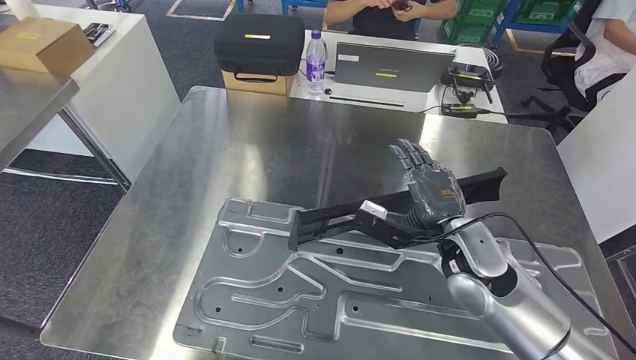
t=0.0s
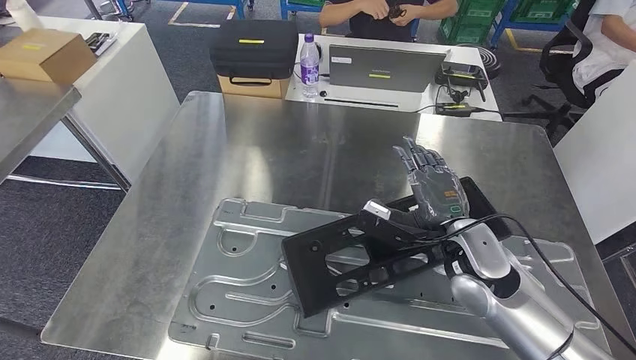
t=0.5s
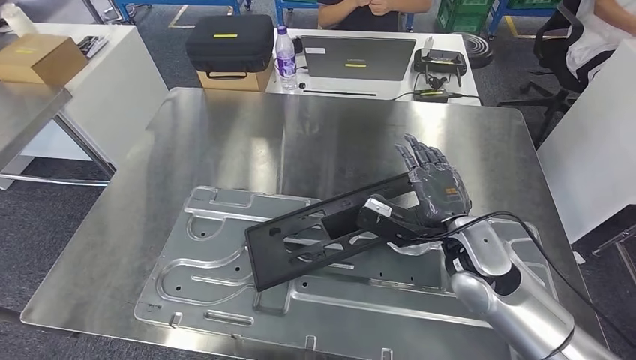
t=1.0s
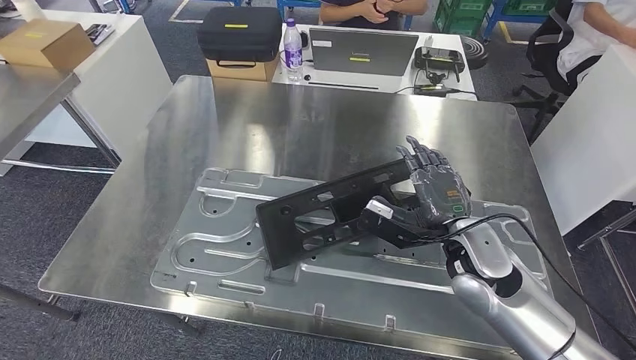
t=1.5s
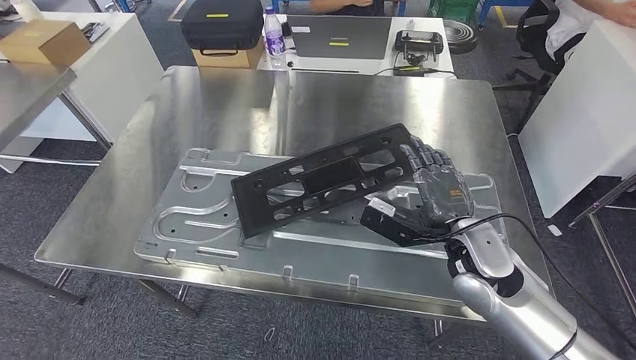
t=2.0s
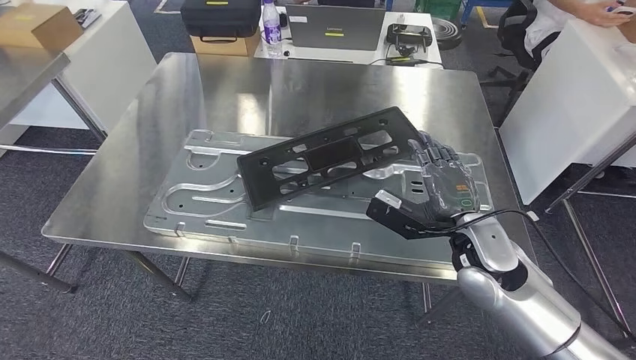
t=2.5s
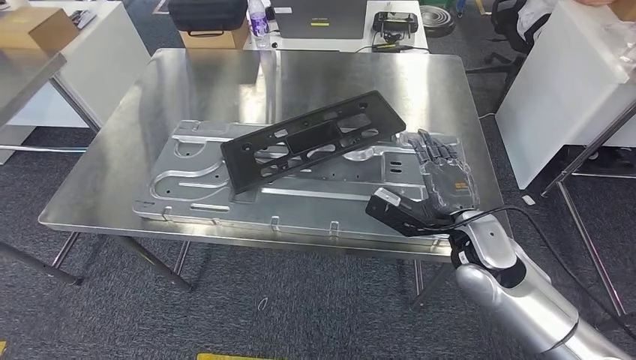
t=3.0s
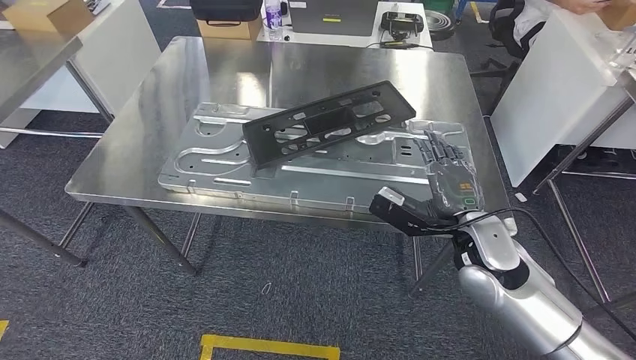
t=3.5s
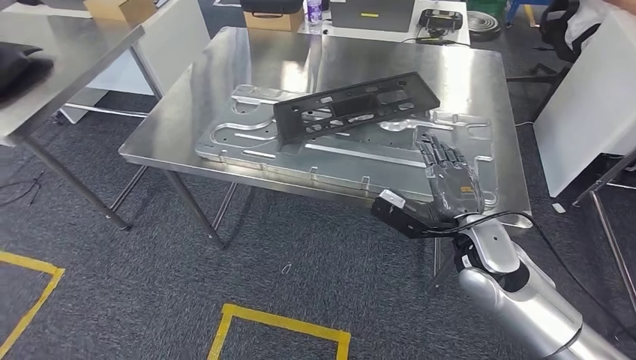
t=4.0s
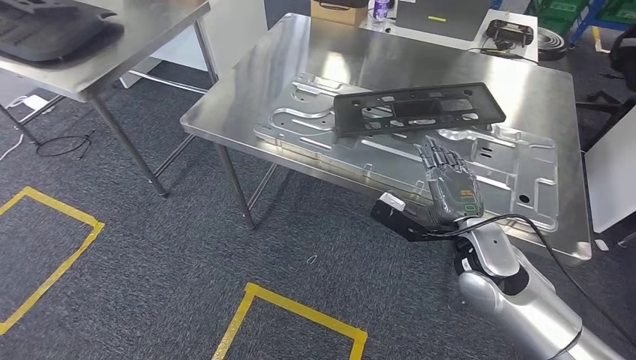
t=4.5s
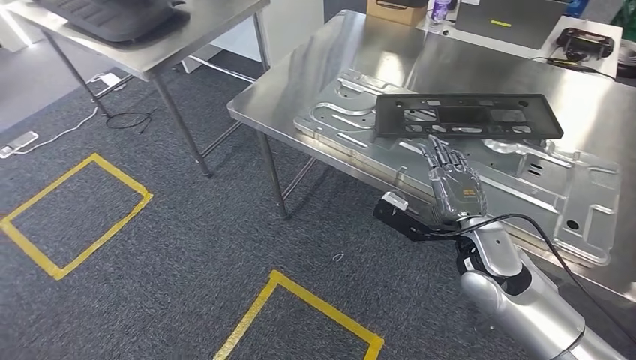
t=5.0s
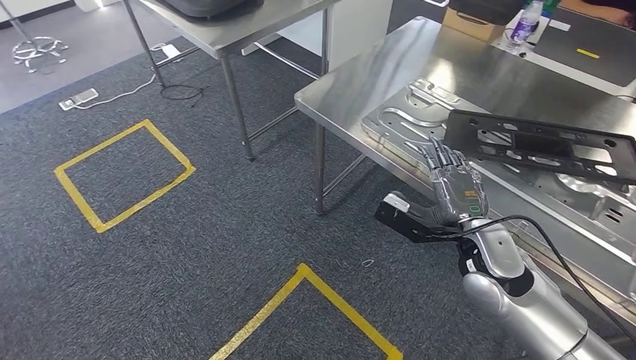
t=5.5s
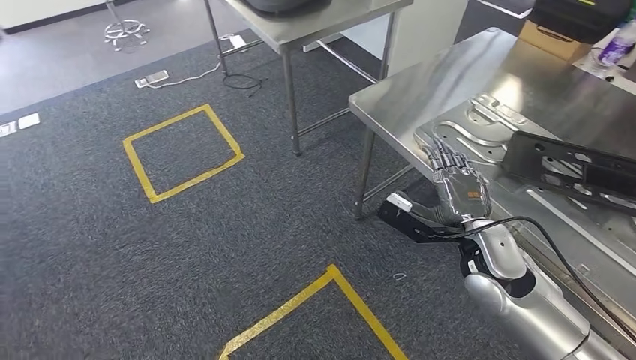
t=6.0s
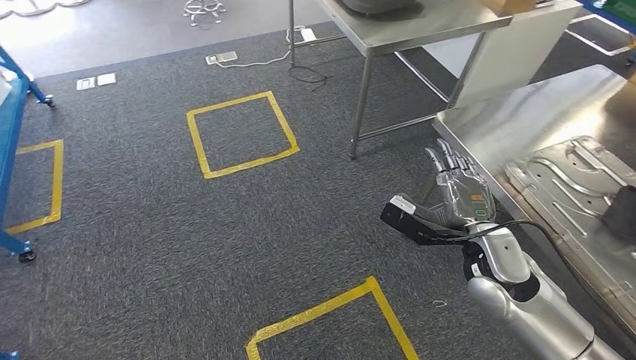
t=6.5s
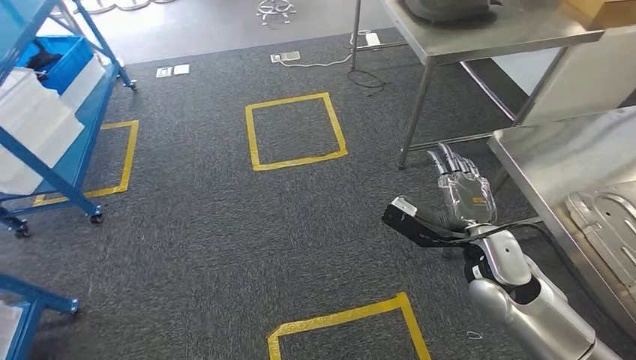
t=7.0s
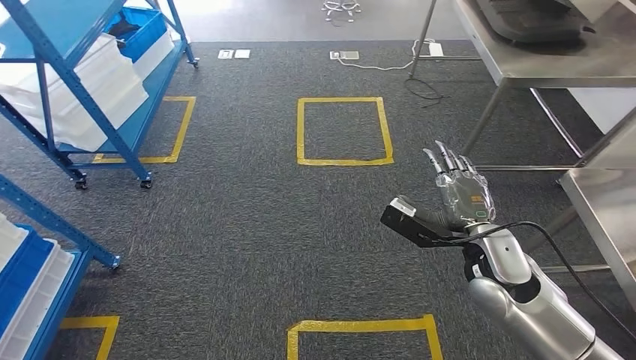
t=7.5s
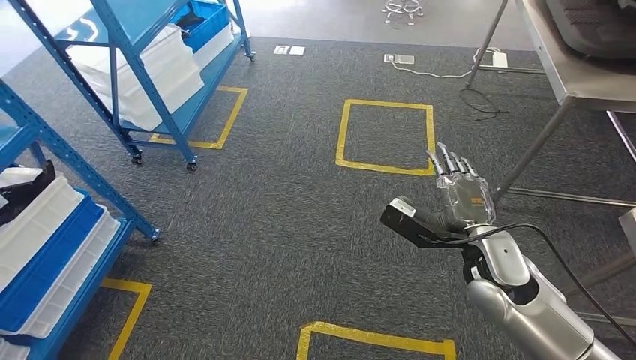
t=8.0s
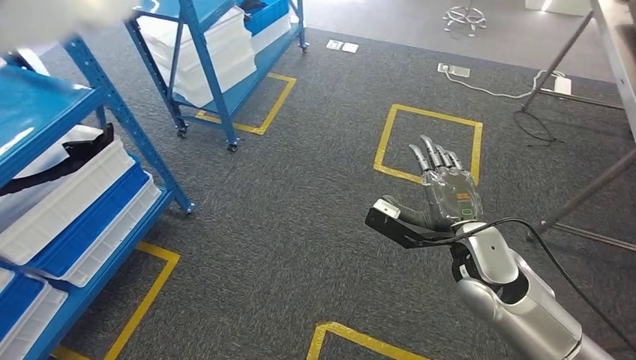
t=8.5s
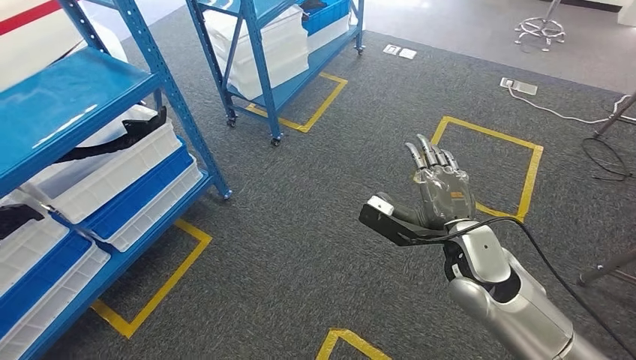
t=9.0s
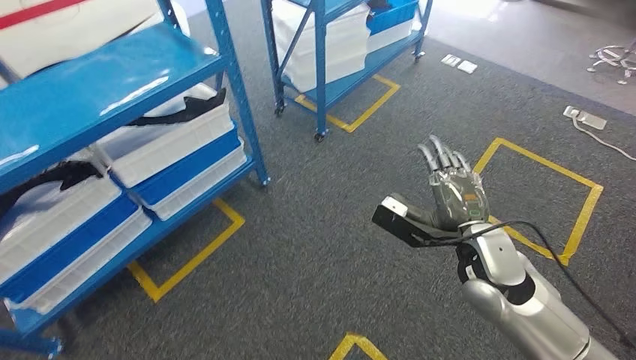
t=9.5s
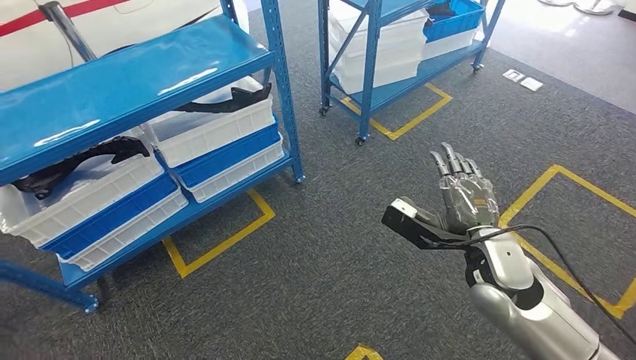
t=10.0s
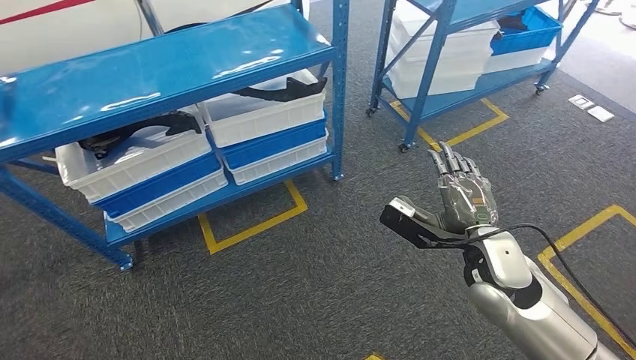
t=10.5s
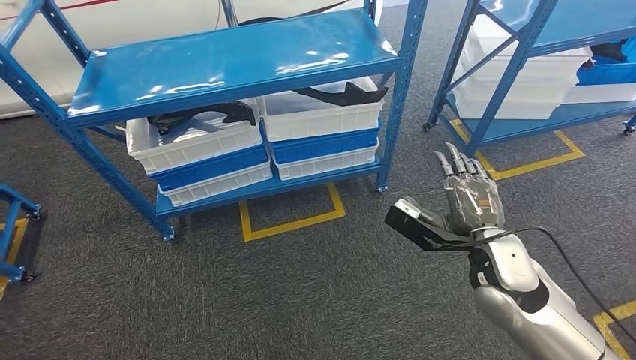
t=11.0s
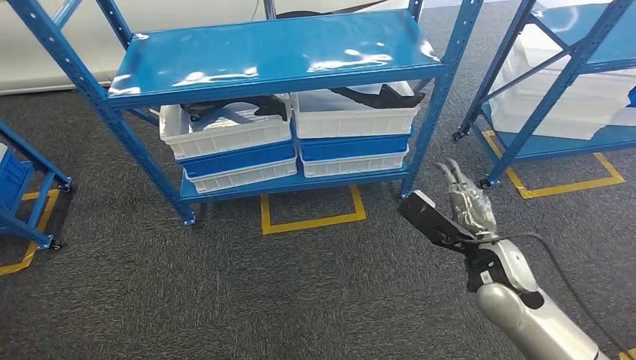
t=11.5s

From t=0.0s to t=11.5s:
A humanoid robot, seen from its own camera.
Step, from t=0.0s to t=3.5s: Insert the large material into the corresponding slot on the workbench.

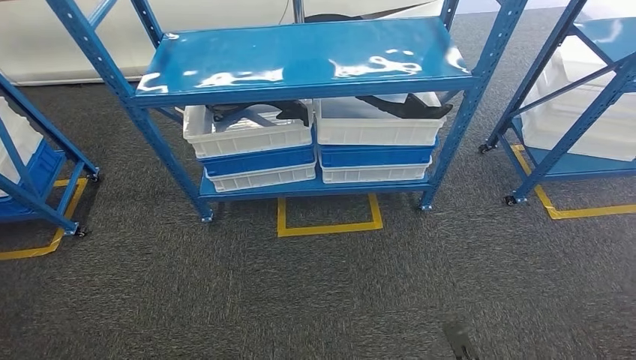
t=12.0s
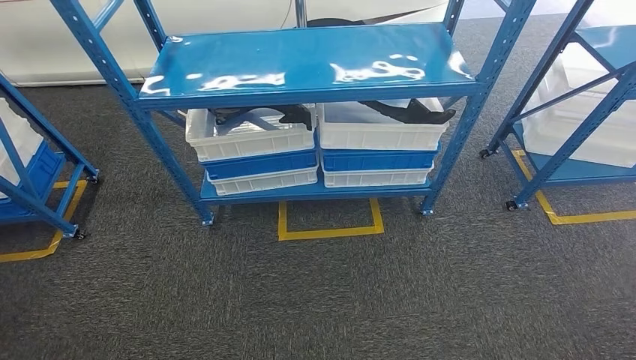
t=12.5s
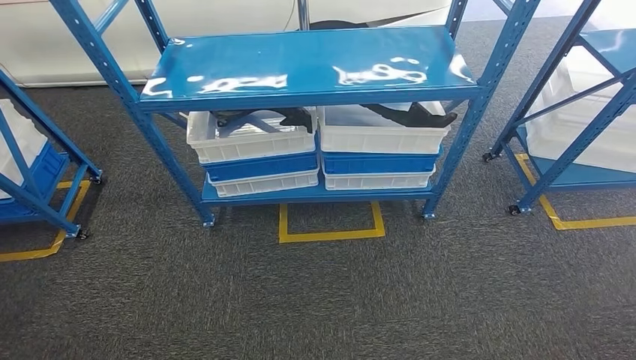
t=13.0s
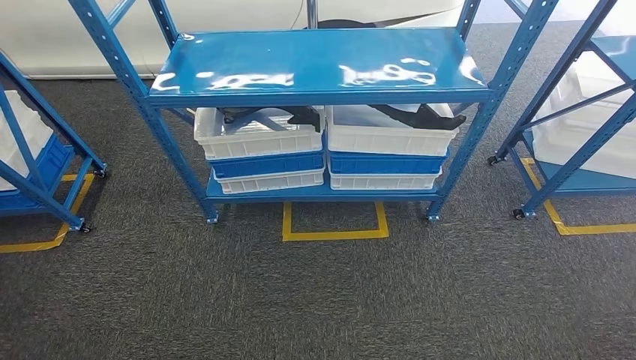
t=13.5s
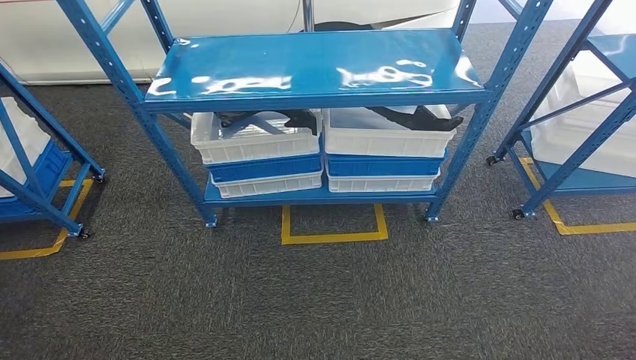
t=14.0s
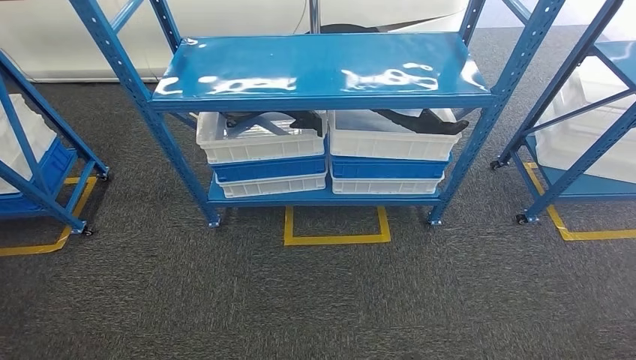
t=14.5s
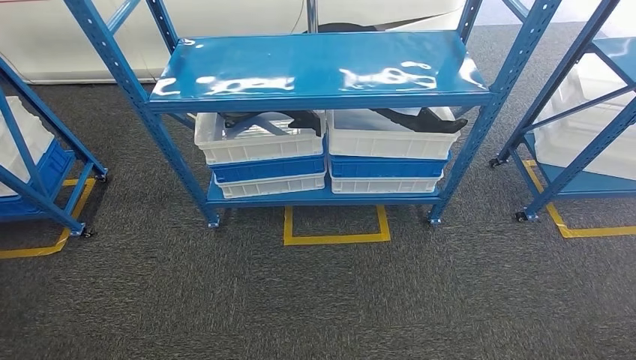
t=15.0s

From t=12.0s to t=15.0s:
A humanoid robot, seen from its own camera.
From t=13.5s to t=15.0s: The left hand moves about 10 cm backward and comes back; the right hand goes forward and backward, roughly 10 cm each way, reversing 2 times.
